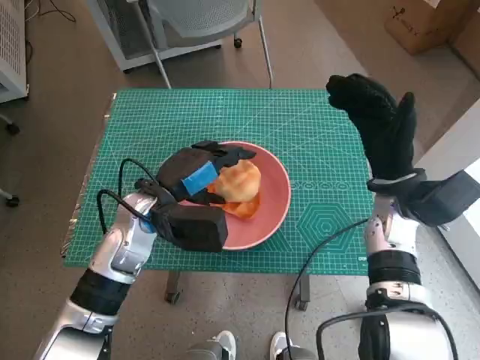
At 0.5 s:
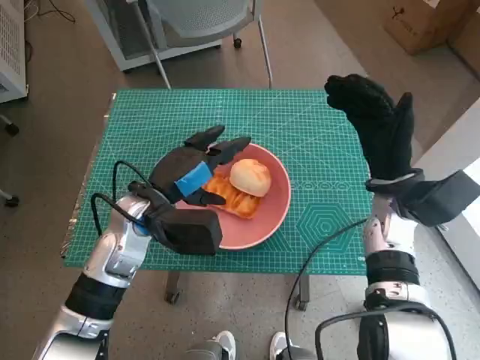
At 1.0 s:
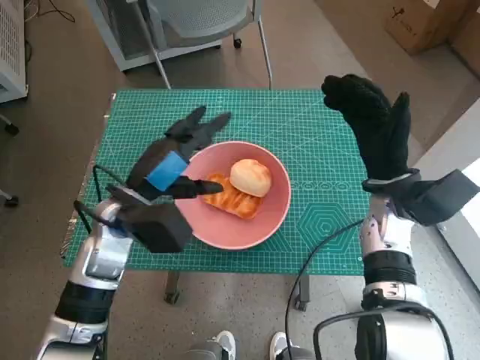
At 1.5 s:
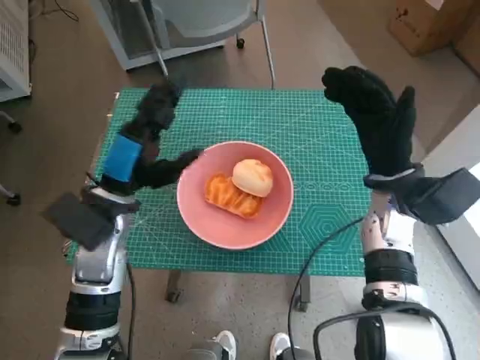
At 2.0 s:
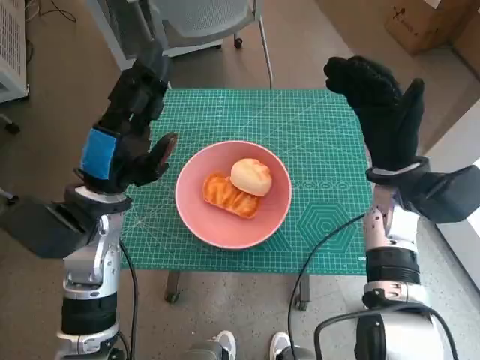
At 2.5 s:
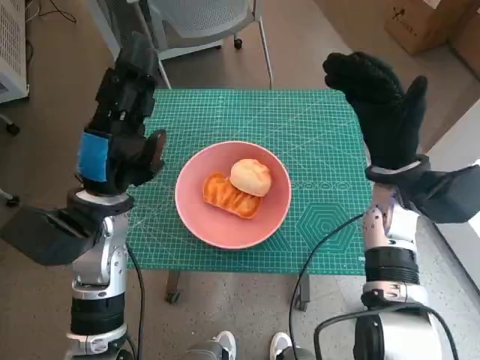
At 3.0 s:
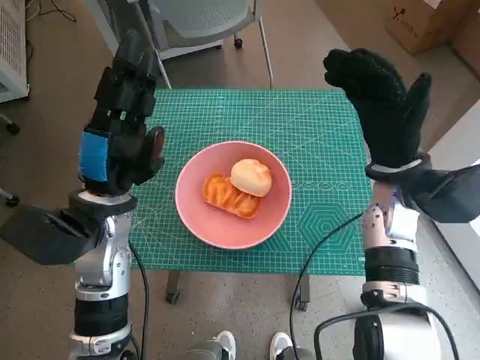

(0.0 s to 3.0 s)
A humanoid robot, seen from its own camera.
1.5 s - 3.0 s: There are only small adjustments of the hands.

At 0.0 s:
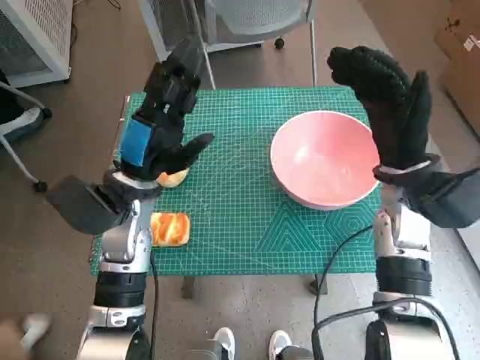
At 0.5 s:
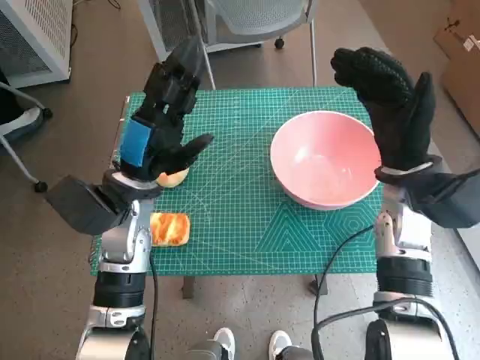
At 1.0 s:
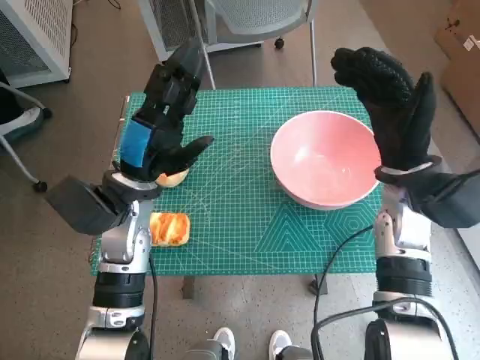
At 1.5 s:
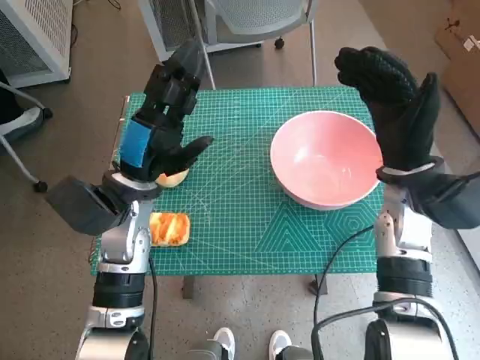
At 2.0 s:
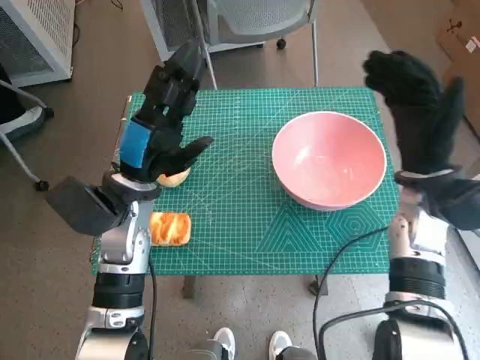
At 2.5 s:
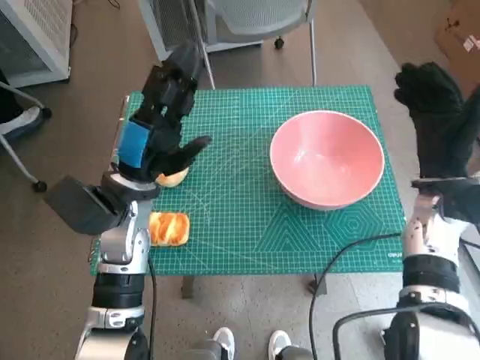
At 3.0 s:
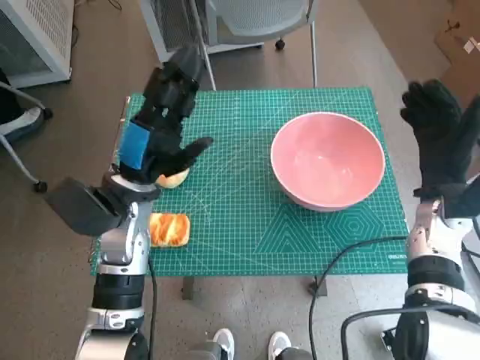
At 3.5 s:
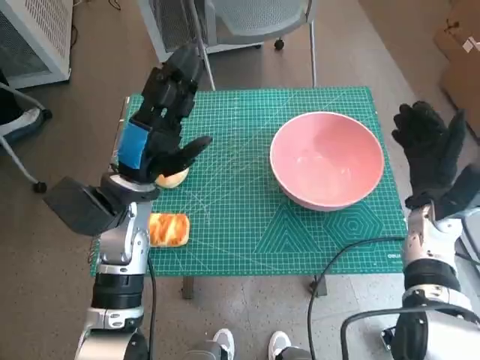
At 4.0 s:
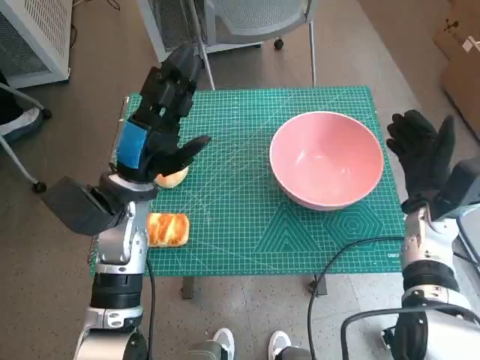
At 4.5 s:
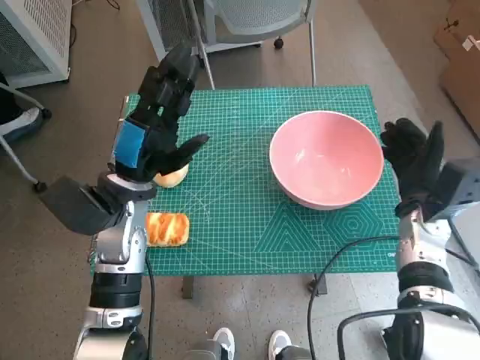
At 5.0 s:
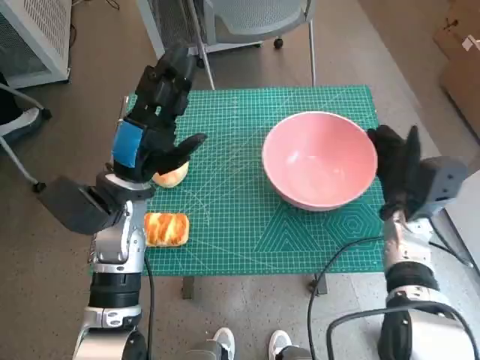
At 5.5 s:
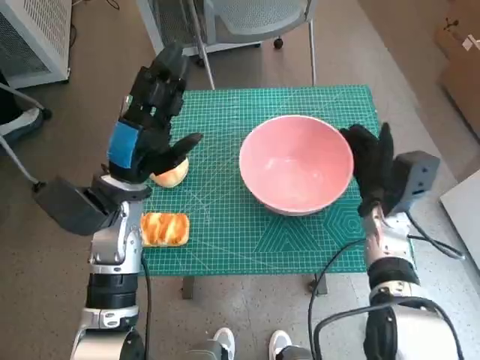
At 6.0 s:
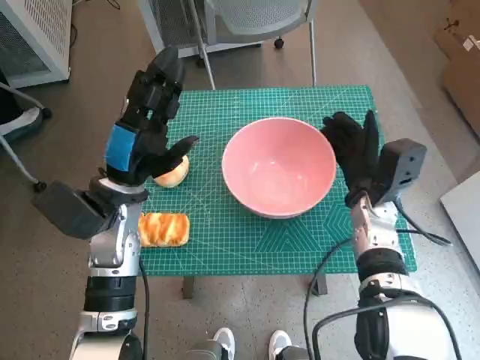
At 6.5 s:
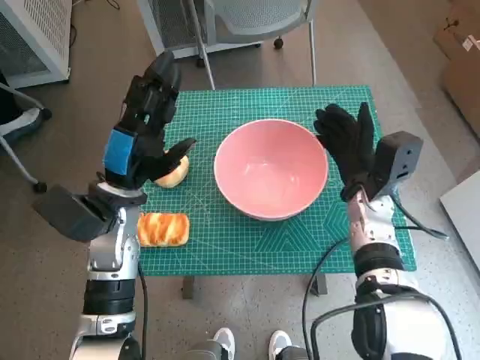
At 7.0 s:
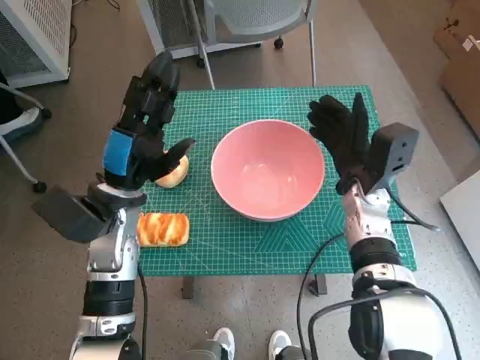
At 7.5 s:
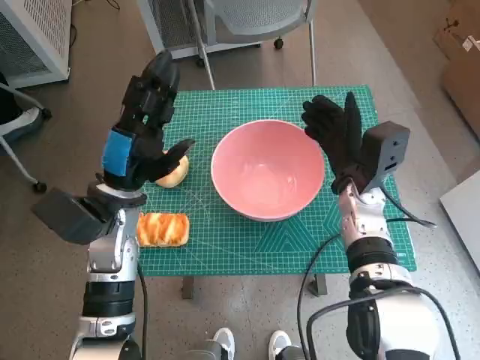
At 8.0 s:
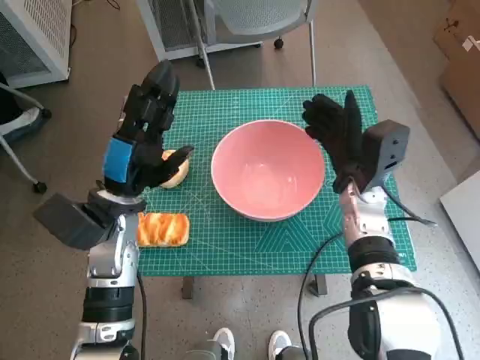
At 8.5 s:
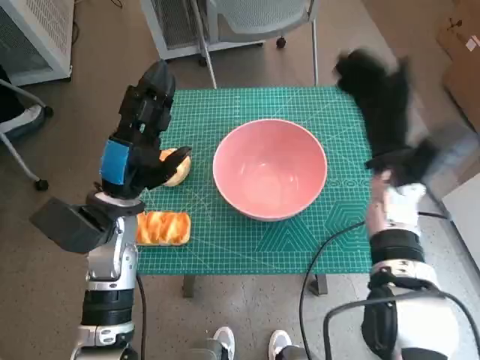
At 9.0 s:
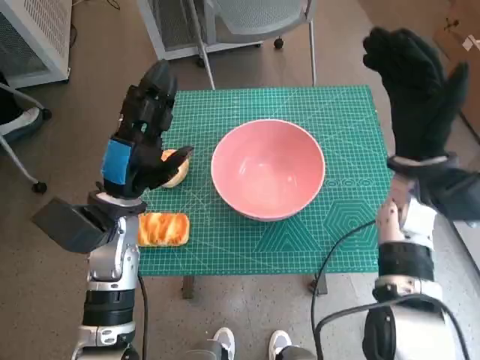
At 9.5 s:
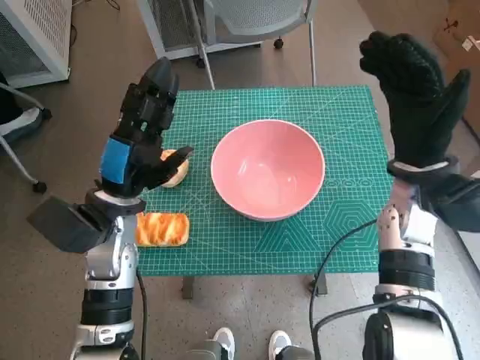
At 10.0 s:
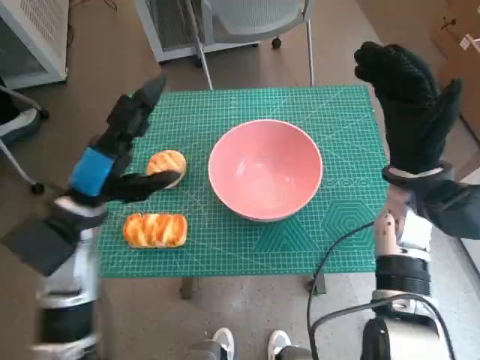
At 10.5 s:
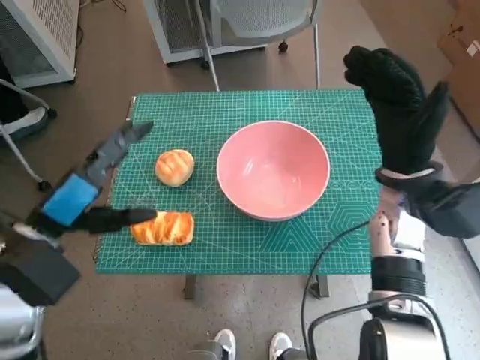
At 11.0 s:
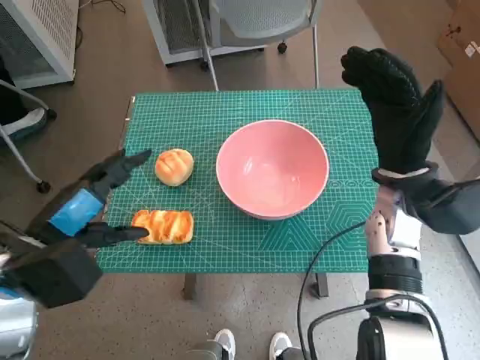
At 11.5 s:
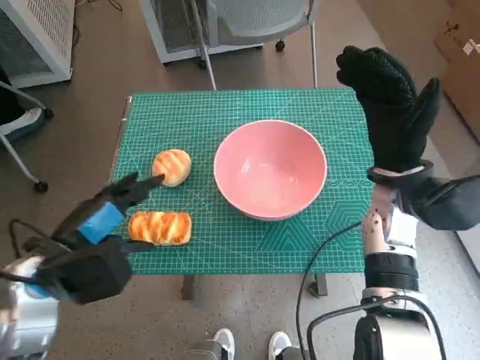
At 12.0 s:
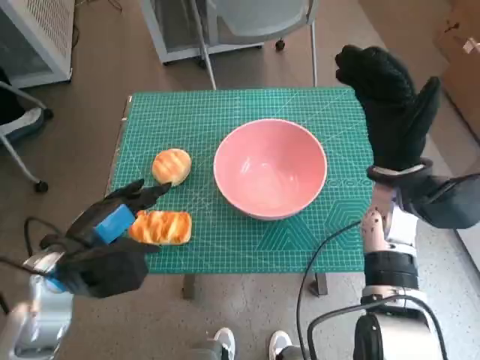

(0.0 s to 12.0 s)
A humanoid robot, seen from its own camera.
Step, 0.0 s - 7.0 s: Move the pink bowl to the center of table with right hand.
2.0 s - 4.0 s: The right hand is displaced downward by about 5 cm.
4.0 s - 6.0 s: The right hand moves to the left, approximately 10 cm.
6.0 s - 8.0 s: There are only small adjustments of the hands.
8.0 s - 10.0 s: The right hand shifts roughly 5 cm upward.
10.0 s - 12.0 s: The left hand travels backward by approximately 5 cm.

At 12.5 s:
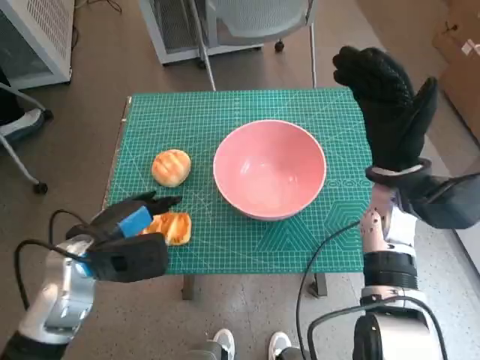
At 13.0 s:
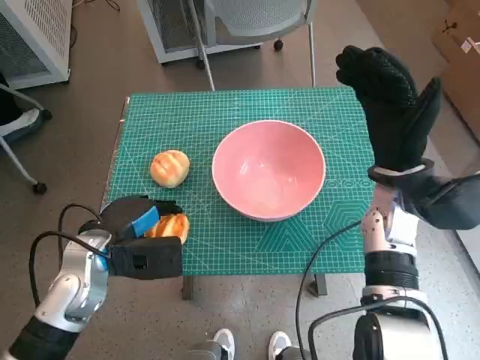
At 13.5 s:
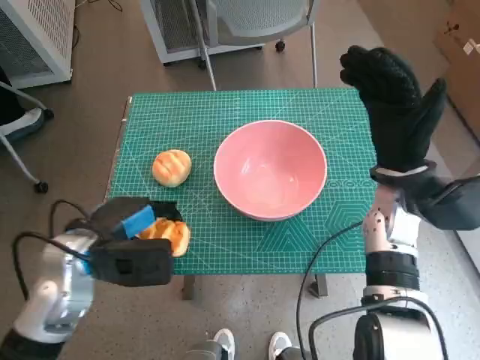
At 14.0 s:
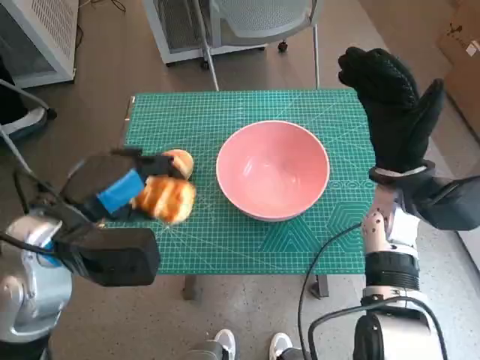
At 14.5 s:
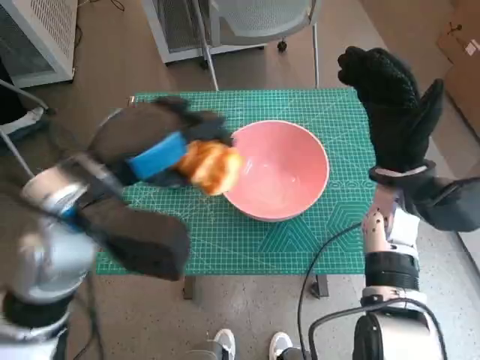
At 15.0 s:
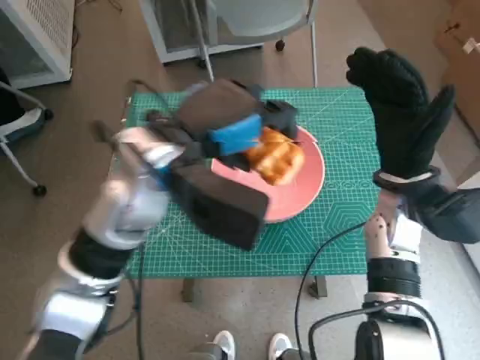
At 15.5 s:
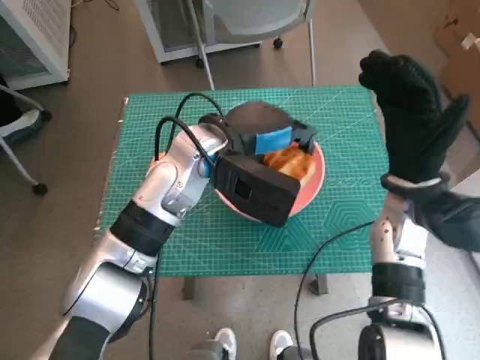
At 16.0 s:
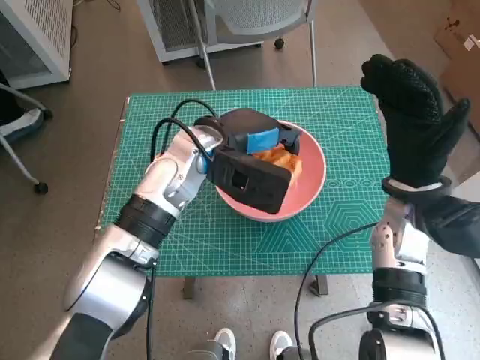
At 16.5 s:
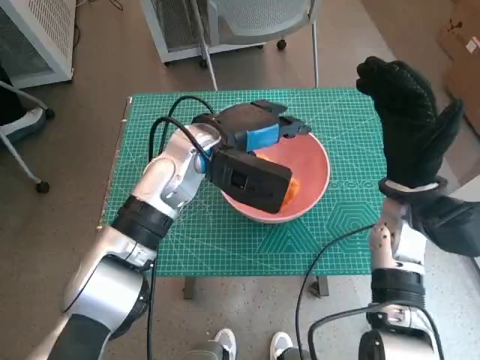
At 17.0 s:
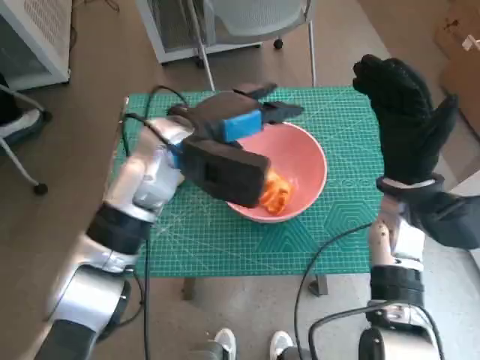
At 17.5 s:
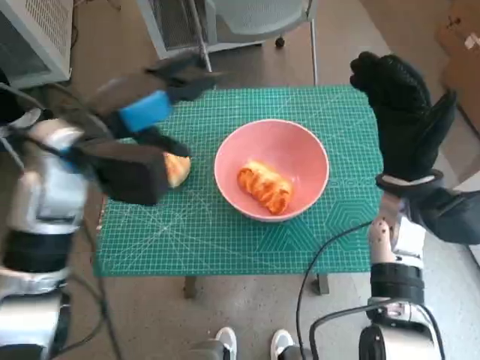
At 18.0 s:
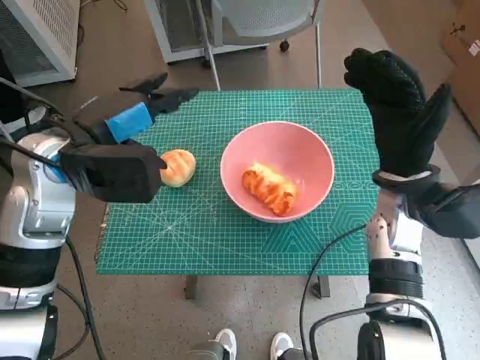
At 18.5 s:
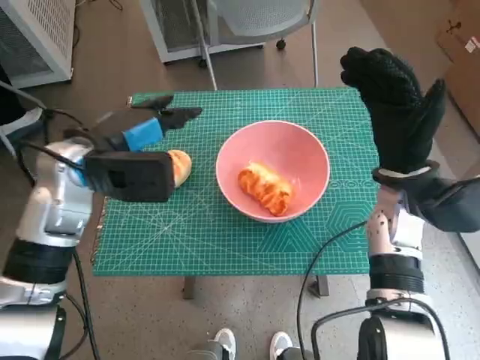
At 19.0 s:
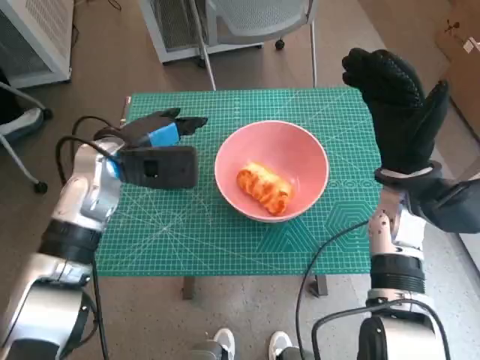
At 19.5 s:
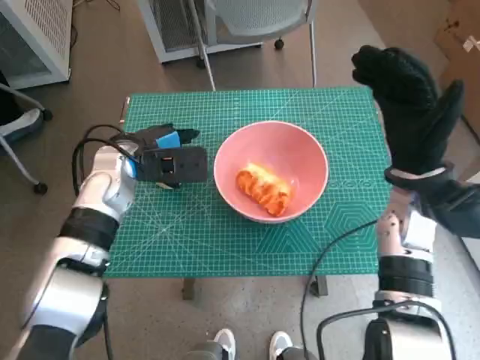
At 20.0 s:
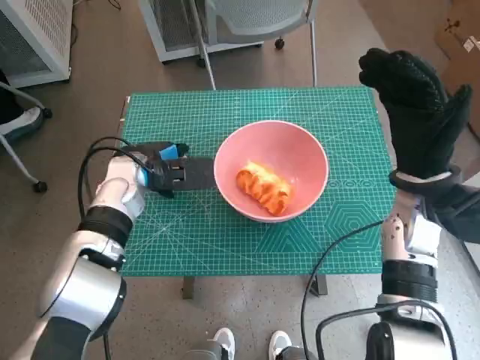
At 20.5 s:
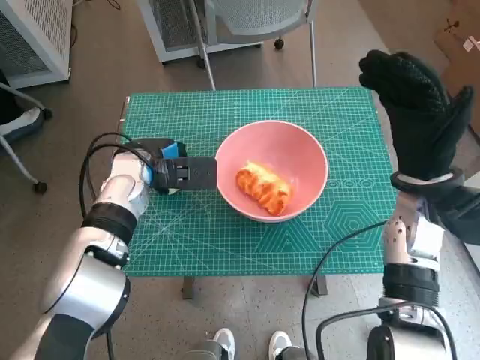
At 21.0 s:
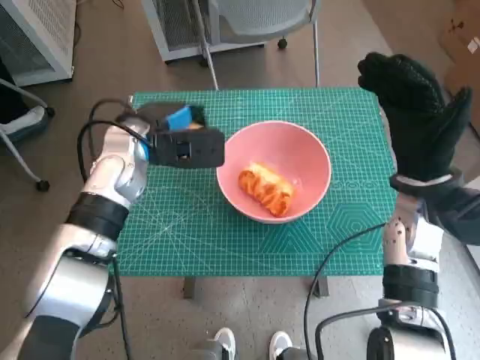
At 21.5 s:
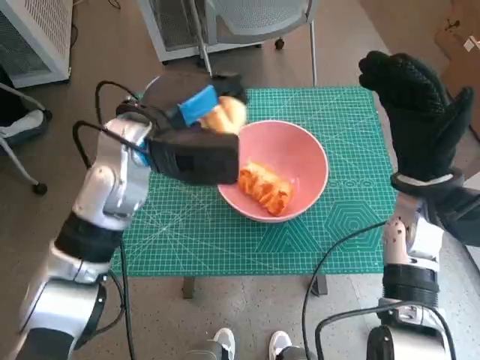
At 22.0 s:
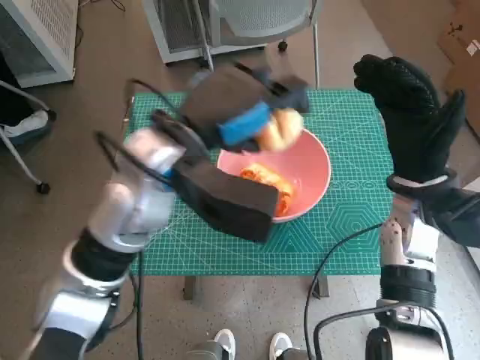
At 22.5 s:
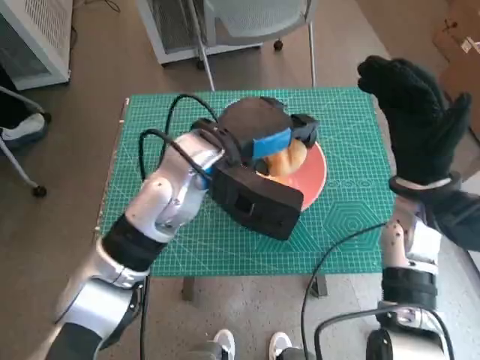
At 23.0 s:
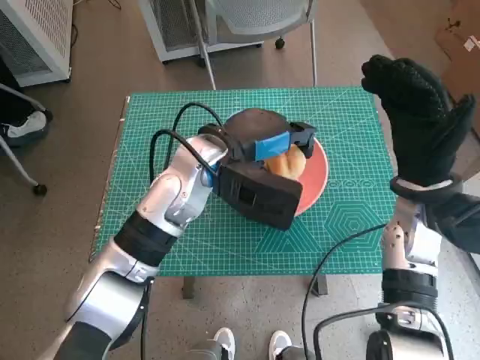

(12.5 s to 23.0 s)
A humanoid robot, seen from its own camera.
Step, 13.5 s - 16.5 s: Place the long bread in pink bowl with left hand.
Step, 17.0 s - 20.0 s: Grasp the round bread with left hand.
12.5 s - 14.5 s: The left hand travels upward and to the right by about 15 cm.
14.5 s - 16.5 s: The left hand is displaced forward, to the right and downward by roughly 15 cm.
16.5 s - 19.0 s: The left hand goes approximately 10 cm to the left.
21.0 s - 23.0 s: The left hand heads to the right, covering approximately 10 cm.
